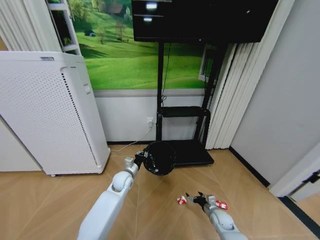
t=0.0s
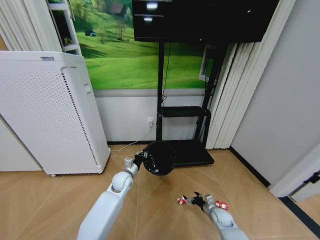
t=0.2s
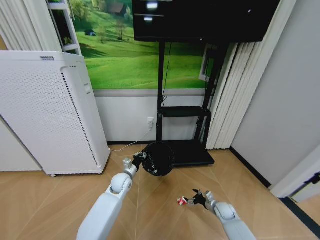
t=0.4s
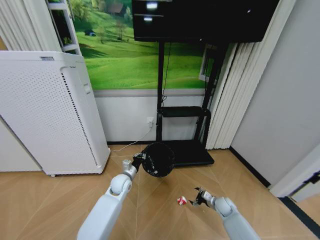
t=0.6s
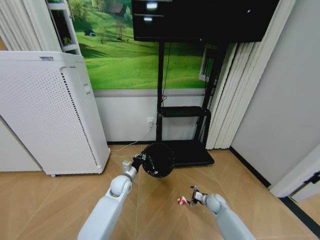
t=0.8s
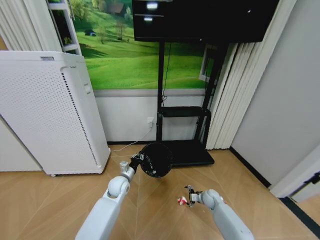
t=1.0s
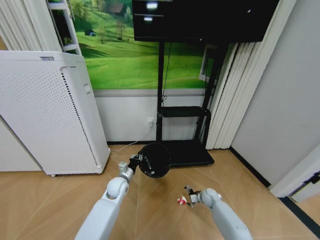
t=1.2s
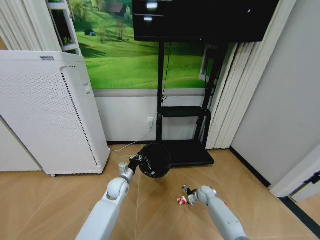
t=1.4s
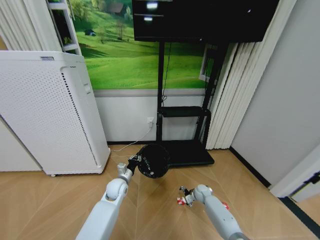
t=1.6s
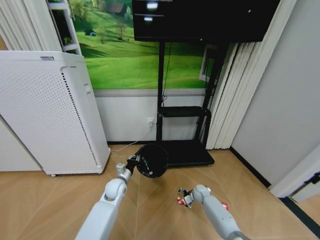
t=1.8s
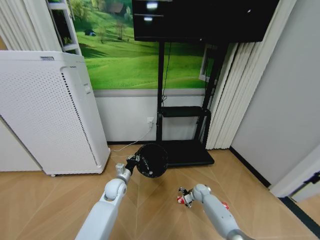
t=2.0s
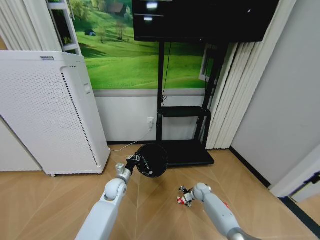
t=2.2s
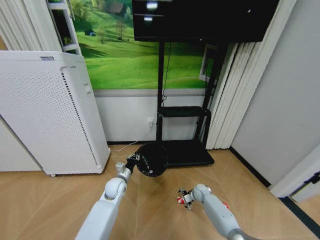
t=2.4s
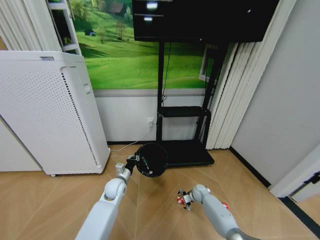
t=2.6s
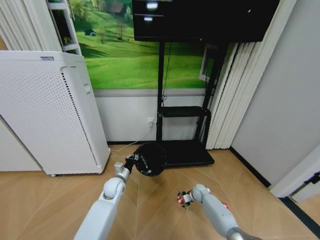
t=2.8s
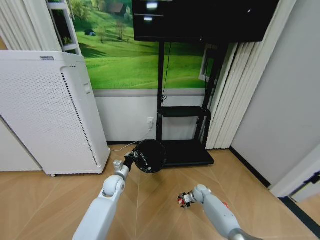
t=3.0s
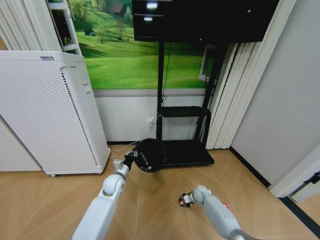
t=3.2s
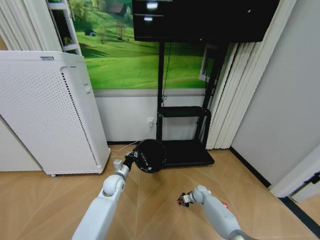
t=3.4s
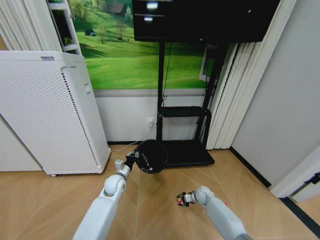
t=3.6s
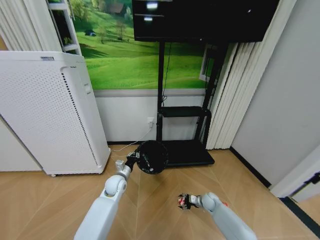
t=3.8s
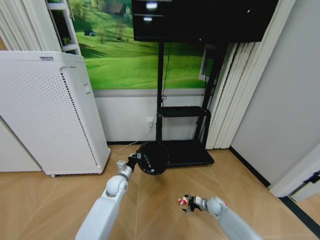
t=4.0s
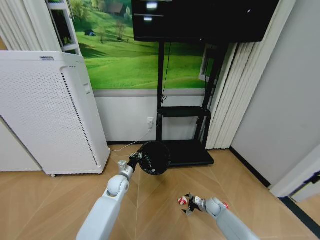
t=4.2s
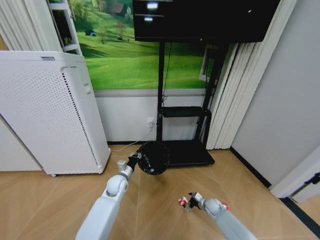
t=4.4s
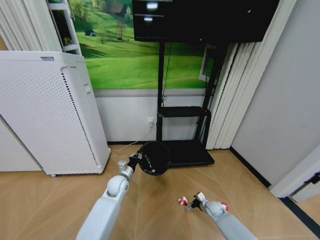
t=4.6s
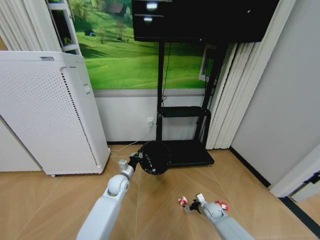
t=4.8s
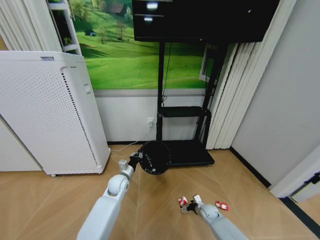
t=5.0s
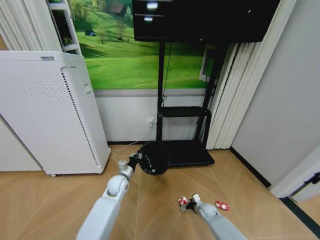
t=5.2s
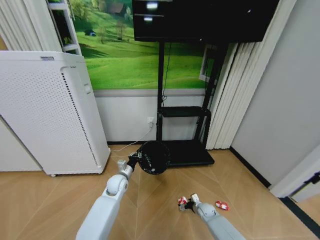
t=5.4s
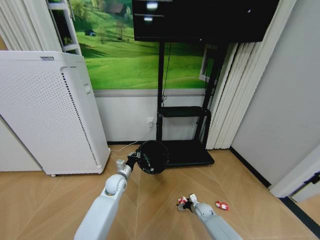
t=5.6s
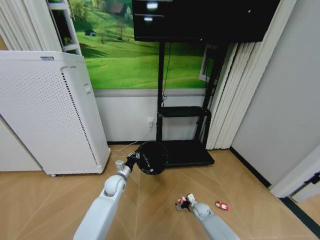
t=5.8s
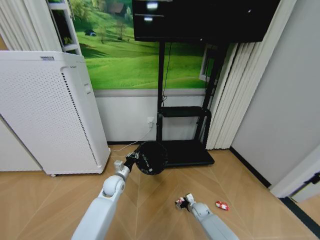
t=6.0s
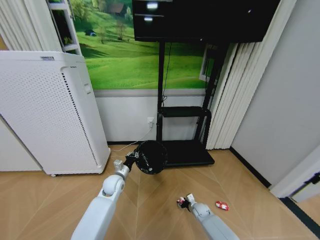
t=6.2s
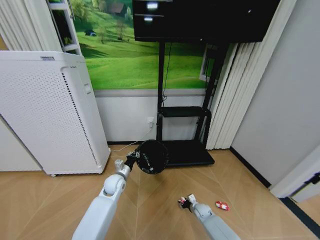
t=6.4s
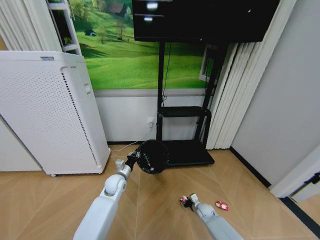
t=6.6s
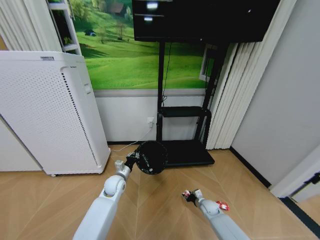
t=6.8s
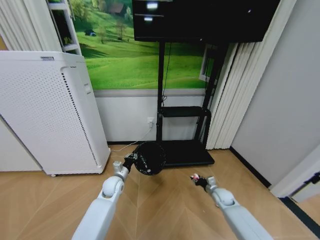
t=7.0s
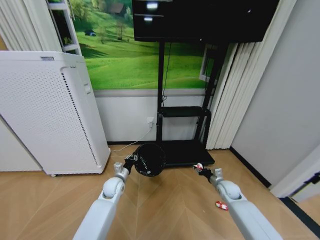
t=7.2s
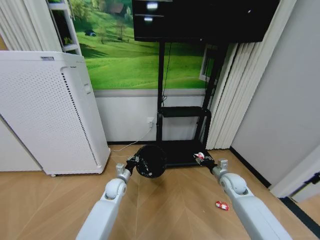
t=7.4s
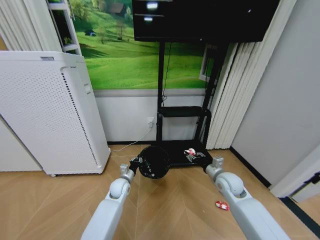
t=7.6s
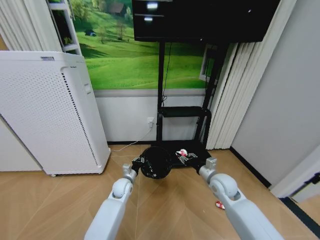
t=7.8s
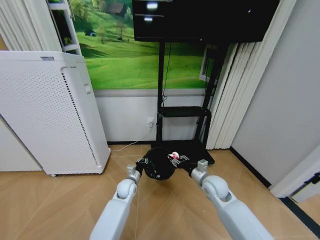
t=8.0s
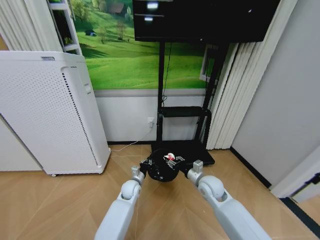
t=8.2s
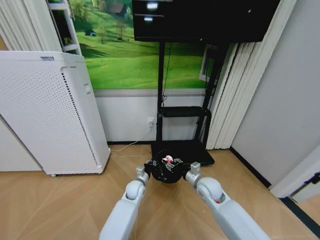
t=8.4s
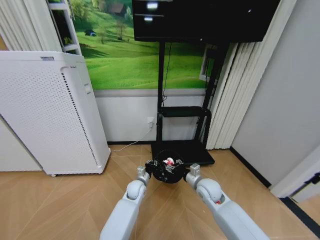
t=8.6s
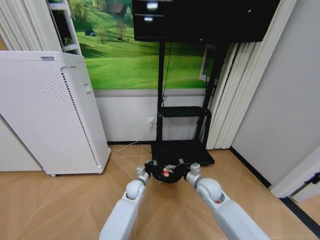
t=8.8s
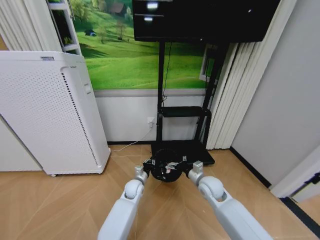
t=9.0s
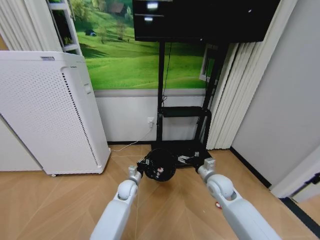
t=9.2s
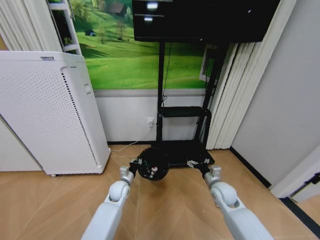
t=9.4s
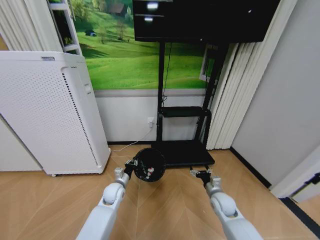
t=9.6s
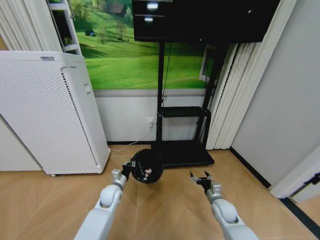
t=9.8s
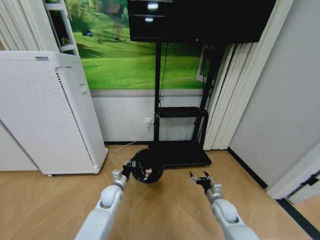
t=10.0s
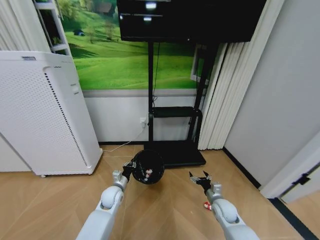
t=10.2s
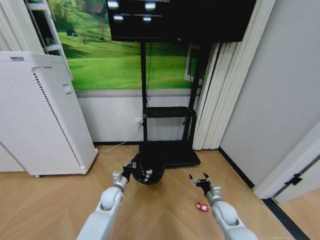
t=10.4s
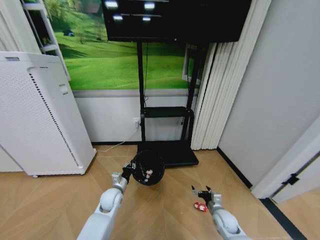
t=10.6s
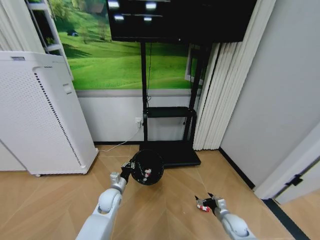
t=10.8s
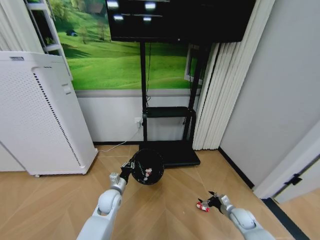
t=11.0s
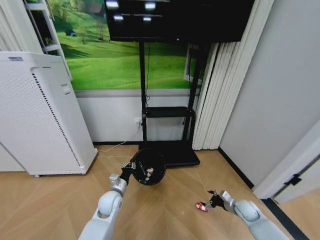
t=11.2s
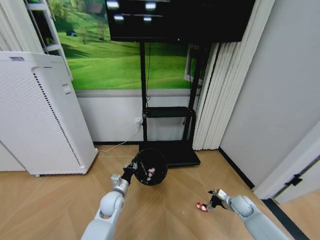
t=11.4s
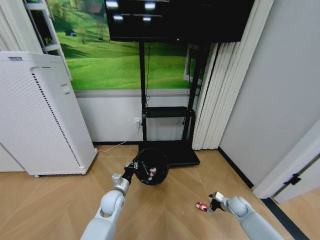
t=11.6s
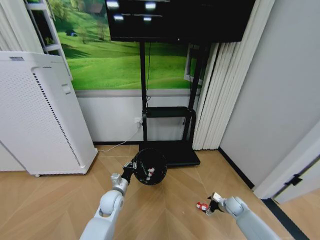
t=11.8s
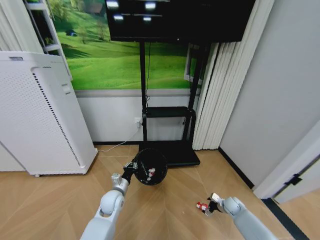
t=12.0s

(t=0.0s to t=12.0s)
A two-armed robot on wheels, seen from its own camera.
Task of the whole recording: Pick up the trash bin and place the garbage on the floor into it.
t=0.0s - t=1.6s: The right gripper heads forward, covering roughly 15 cm.
t=1.6s - t=3.0s: The right gripper closes up.
t=3.0s - t=4.4s: The right gripper goes roughly 10 cm backward and to the right, and opens its fingers.
t=4.4s - t=6.0s: The right gripper heads to the left, covering approximately 5 cm.
t=6.0s - t=7.6s: The right gripper travels upward by roughly 30 cm, and closes up.
t=7.6s - t=9.0s: The right gripper is displaced to the left by roughly 10 cm, and opens up. The left gripper moves to the right, some 10 cm.
t=9.0s - t=10.4s: The right gripper heads downward, to the right and backward, covering some 15 cm, while the left gripper moves to the left, some 10 cm.
t=10.4s - t=12.0s: The right gripper goes roughly 15 cm to the right, downward and forward.

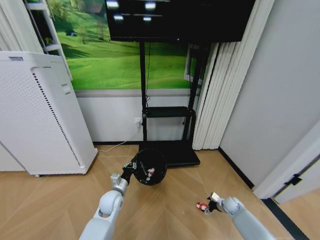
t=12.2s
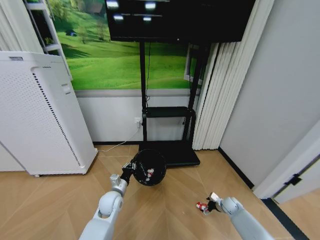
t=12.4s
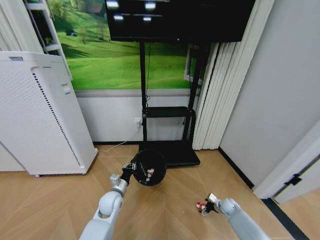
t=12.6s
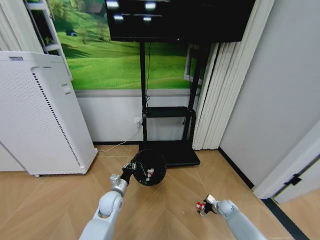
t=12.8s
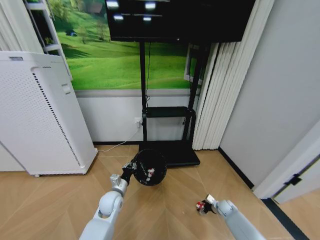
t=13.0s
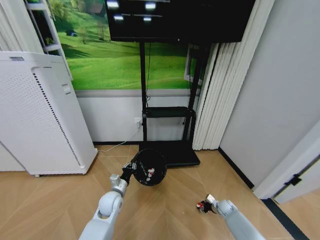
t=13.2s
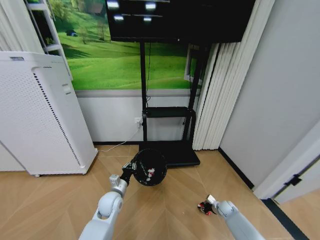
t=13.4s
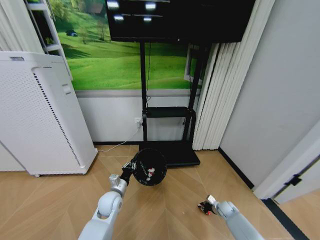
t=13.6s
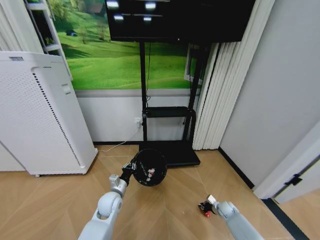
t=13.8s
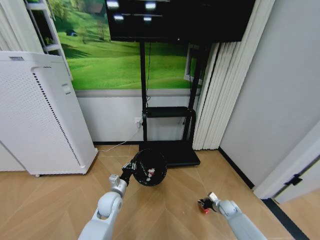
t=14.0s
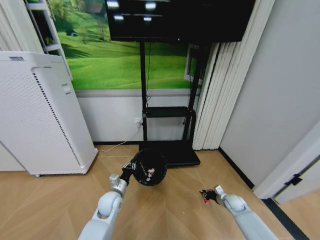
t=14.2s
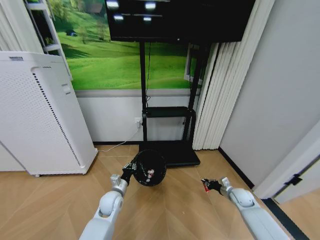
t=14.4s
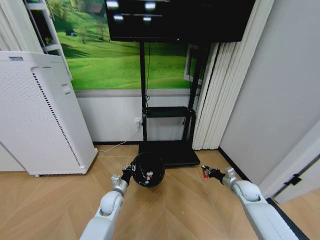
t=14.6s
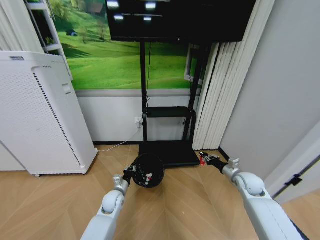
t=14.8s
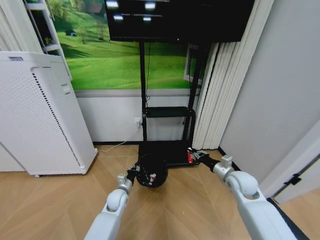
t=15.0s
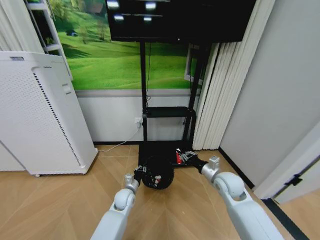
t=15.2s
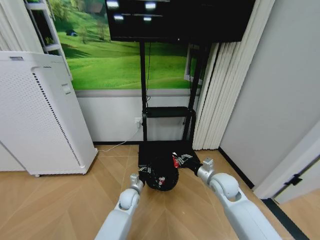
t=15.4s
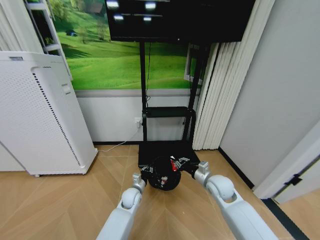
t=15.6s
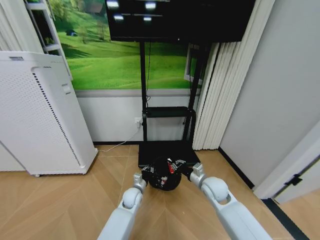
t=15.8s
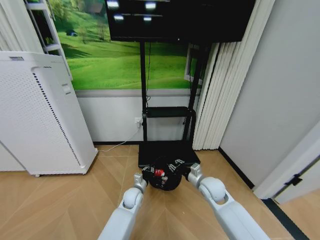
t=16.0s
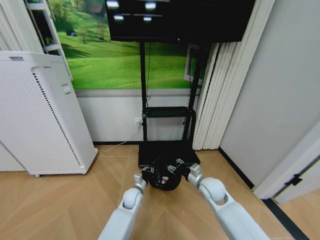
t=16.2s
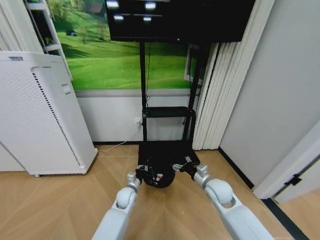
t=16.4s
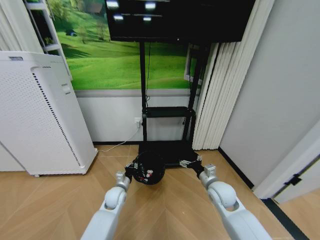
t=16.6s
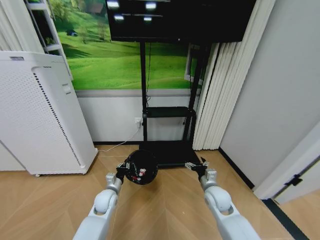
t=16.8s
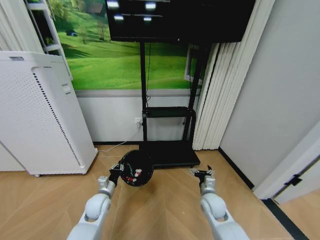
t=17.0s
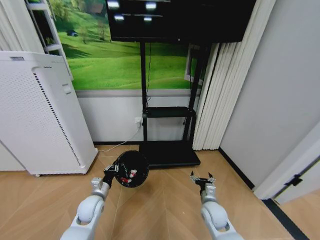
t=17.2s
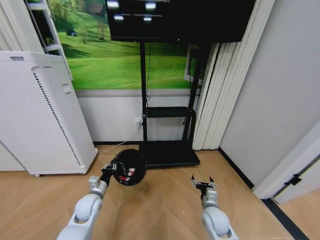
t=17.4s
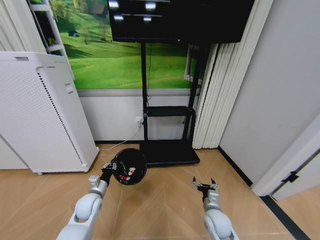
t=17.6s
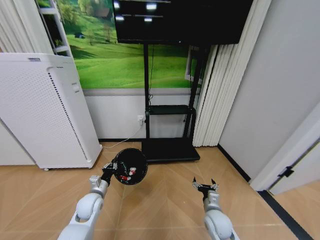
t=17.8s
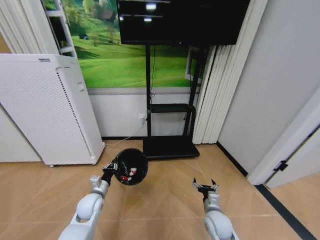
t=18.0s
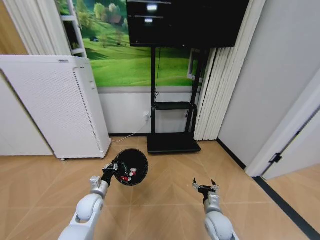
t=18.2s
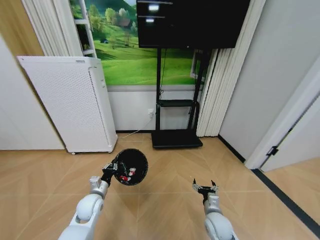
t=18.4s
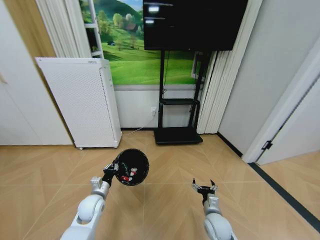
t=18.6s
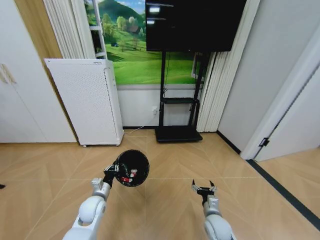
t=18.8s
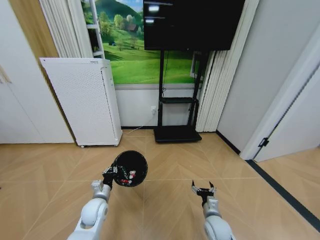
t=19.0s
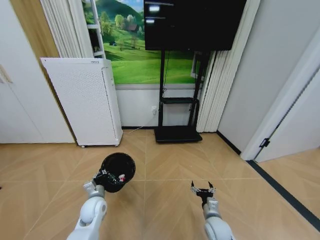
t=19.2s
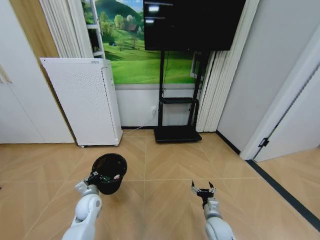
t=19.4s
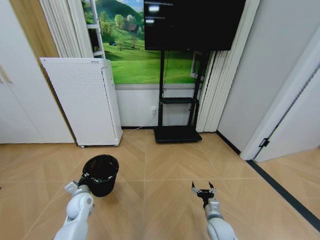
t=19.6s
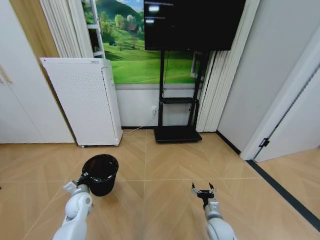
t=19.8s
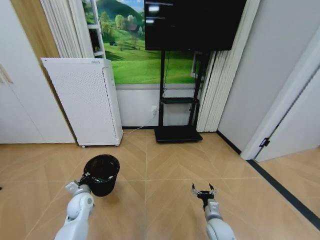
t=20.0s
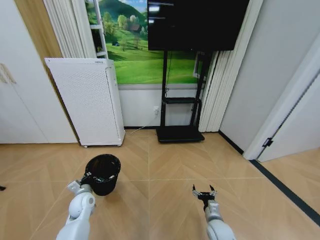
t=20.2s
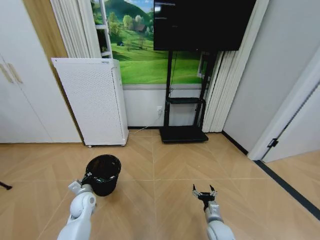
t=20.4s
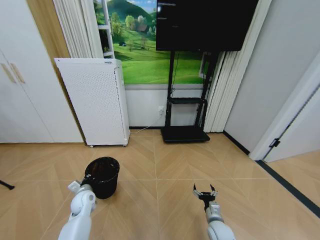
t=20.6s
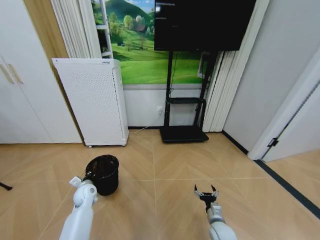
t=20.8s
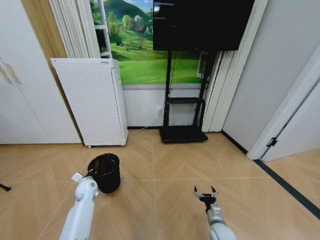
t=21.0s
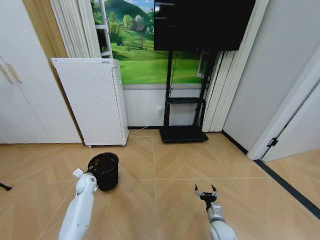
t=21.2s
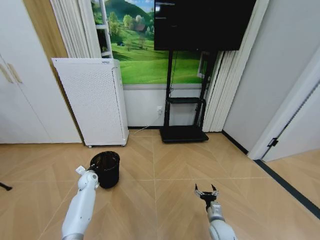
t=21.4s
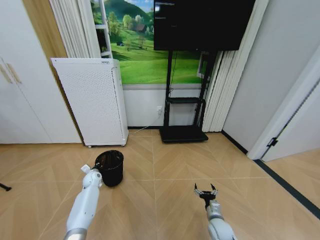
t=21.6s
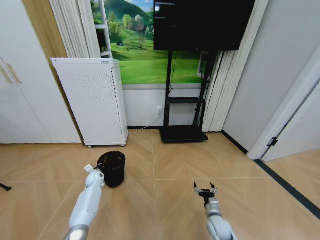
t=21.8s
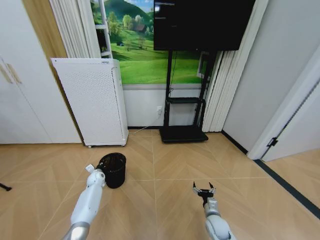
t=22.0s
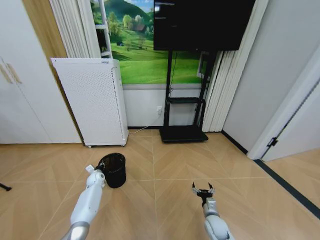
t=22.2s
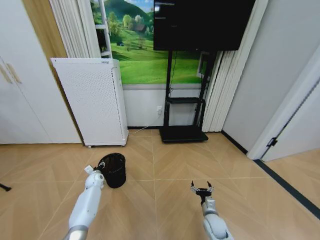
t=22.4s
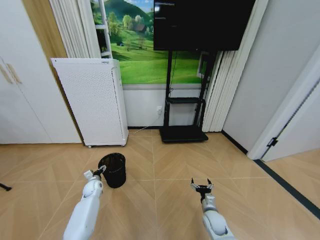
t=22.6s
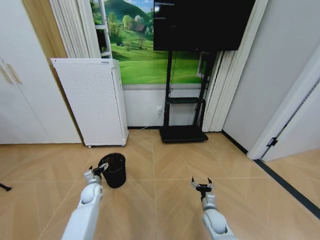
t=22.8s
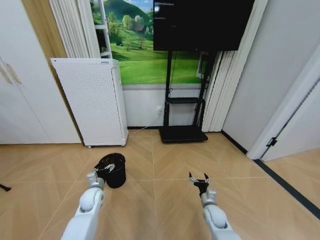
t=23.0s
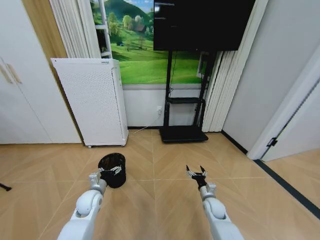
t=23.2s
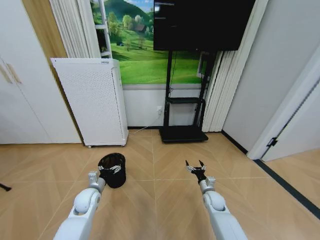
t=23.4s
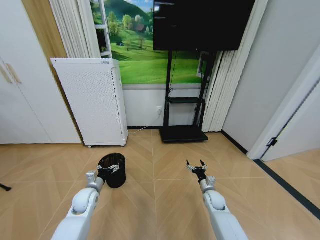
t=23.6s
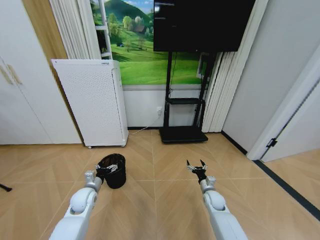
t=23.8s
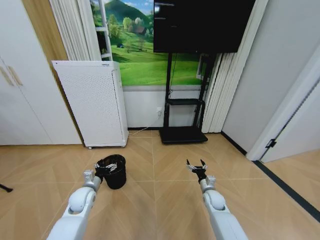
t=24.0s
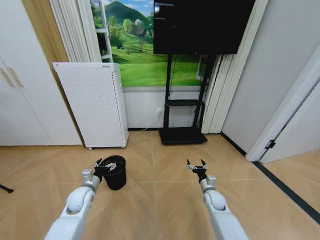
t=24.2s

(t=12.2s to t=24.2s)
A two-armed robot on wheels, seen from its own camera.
Task of the whole recording: Pick up the trash bin and place the garbage on the floor into it.
t=12.2s - t=13.8s: The right gripper closes.
t=13.8s - t=15.2s: The right gripper heads upward and to the left, covering some 35 cm; the left gripper goes roughly 5 cm downward.
t=15.2s - t=16.6s: The right gripper shifts by approximately 5 cm, and opens its fingers.
t=16.6s - t=18.2s: The left gripper goes approximately 10 cm to the left and backward. Meanwhile the right gripper moves downward and backward, about 15 cm.
t=18.2s - t=19.8s: The left gripper goes about 5 cm to the left.
t=19.8s - t=21.2s: The left gripper shifts roughly 10 cm forward; the right gripper shifts by about 5 cm.
t=21.2s - t=22.6s: The left gripper shifts roughly 5 cm downward, and opens its fingers.
t=22.6s - t=24.2s: The right gripper moves forward, about 10 cm. The left gripper travels upward and backward by roughly 15 cm.
